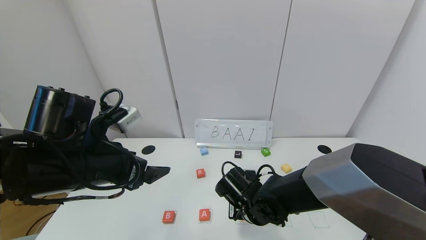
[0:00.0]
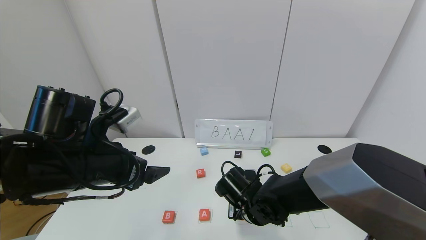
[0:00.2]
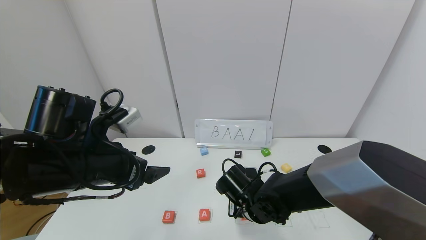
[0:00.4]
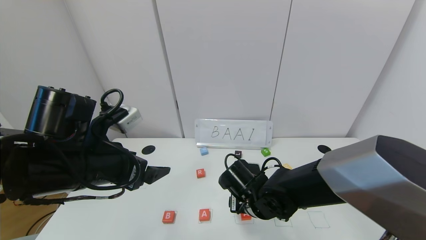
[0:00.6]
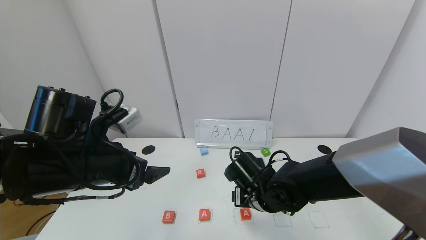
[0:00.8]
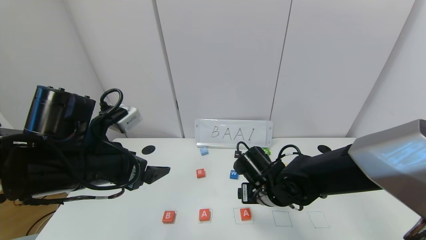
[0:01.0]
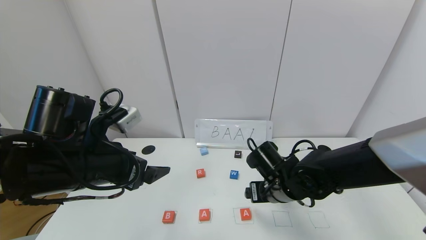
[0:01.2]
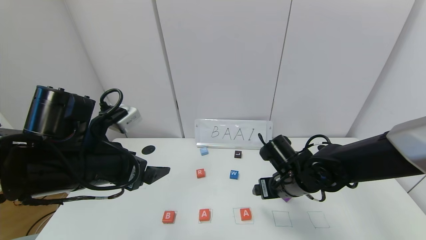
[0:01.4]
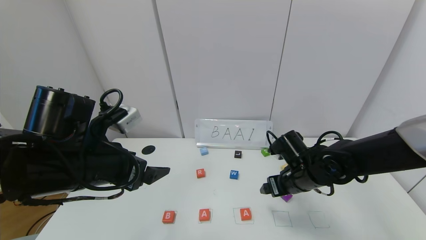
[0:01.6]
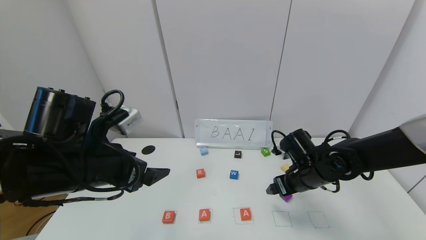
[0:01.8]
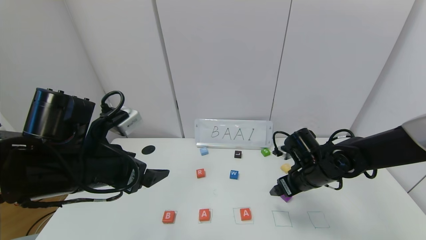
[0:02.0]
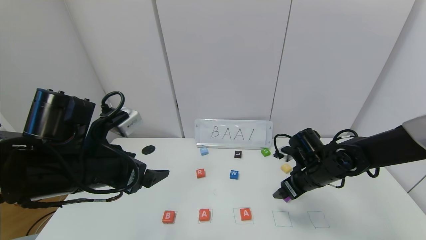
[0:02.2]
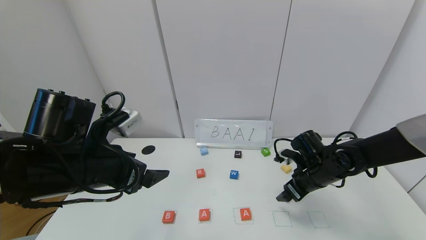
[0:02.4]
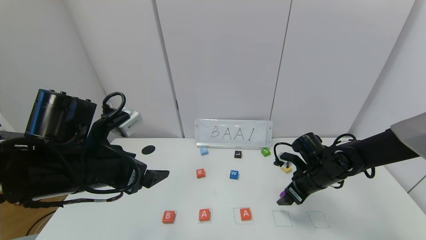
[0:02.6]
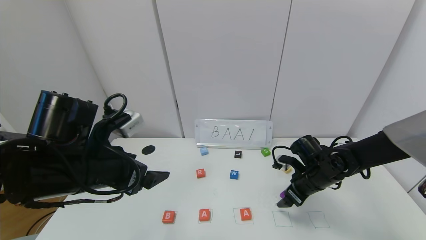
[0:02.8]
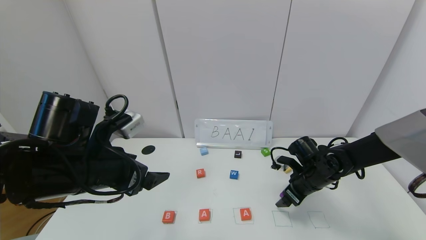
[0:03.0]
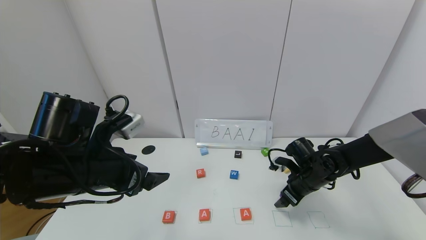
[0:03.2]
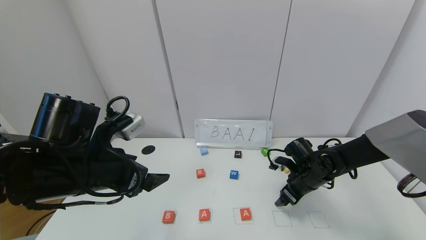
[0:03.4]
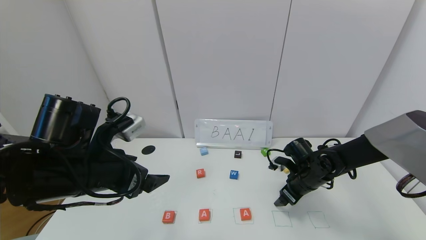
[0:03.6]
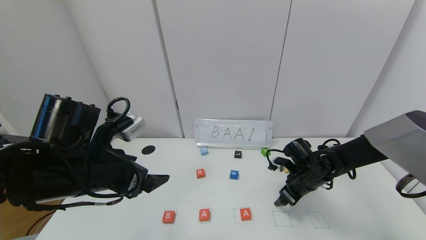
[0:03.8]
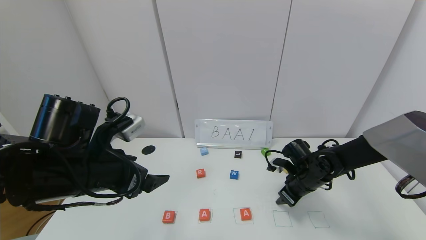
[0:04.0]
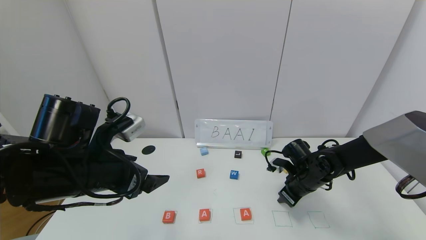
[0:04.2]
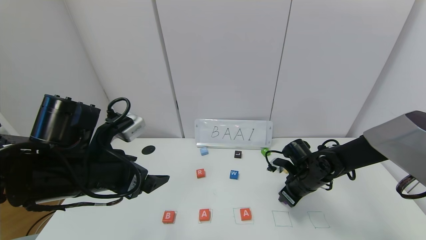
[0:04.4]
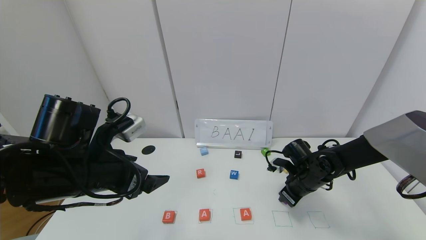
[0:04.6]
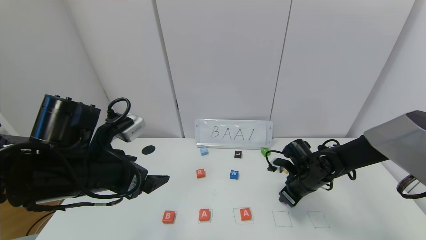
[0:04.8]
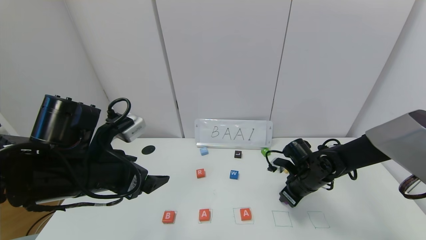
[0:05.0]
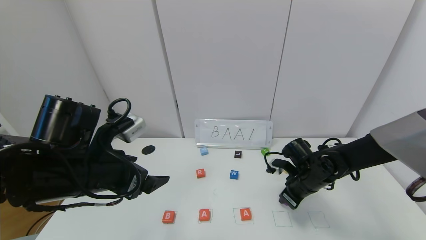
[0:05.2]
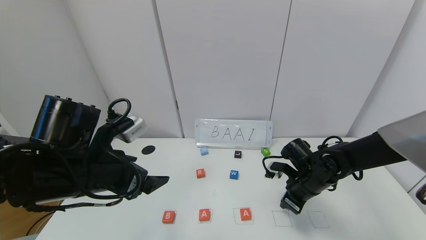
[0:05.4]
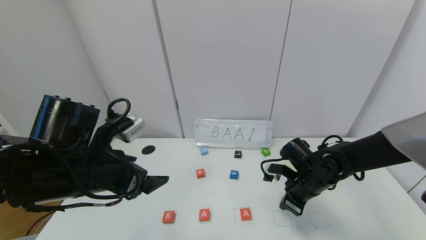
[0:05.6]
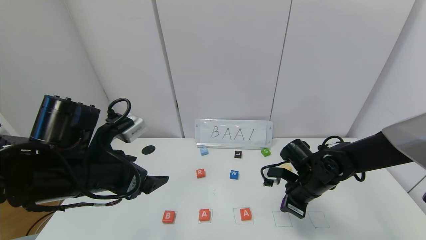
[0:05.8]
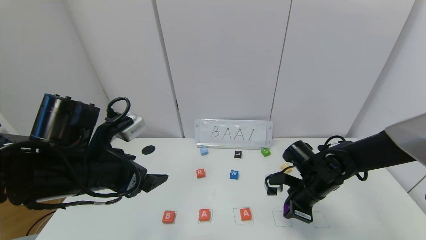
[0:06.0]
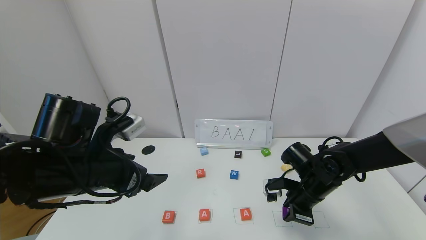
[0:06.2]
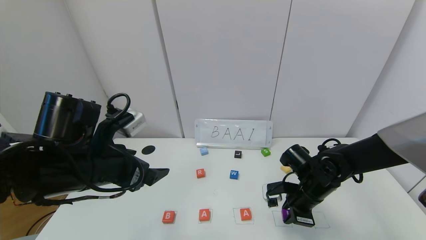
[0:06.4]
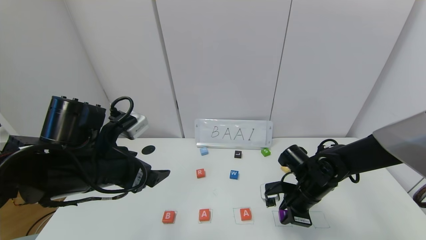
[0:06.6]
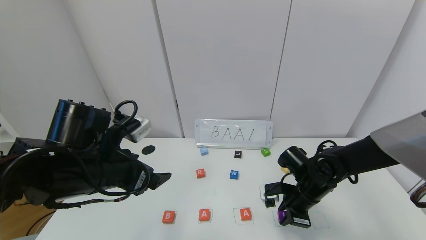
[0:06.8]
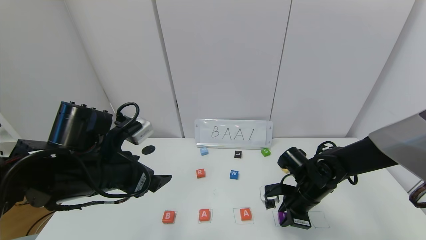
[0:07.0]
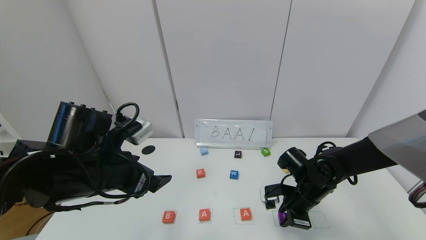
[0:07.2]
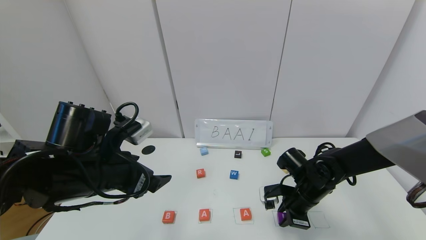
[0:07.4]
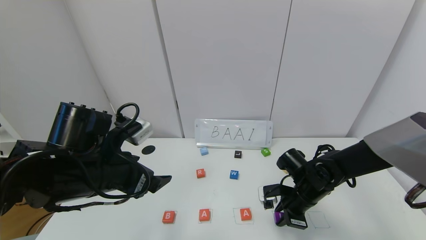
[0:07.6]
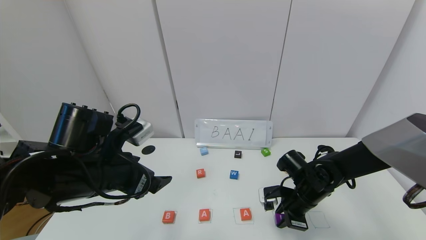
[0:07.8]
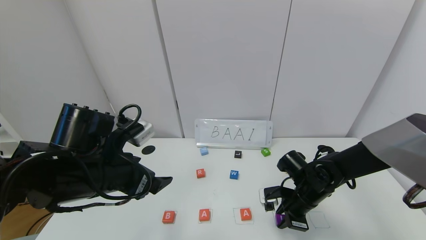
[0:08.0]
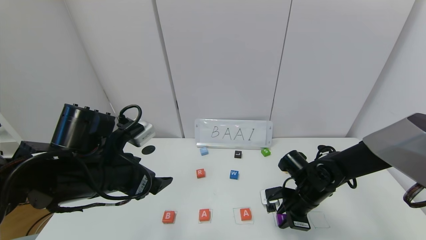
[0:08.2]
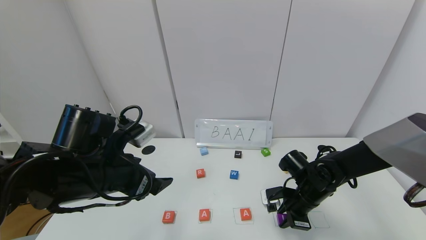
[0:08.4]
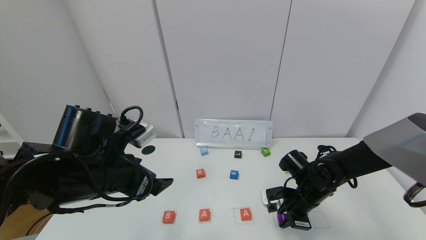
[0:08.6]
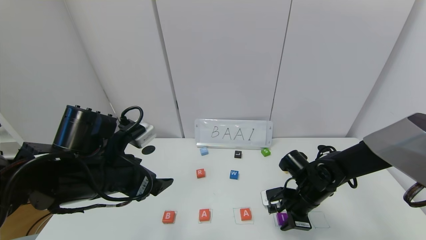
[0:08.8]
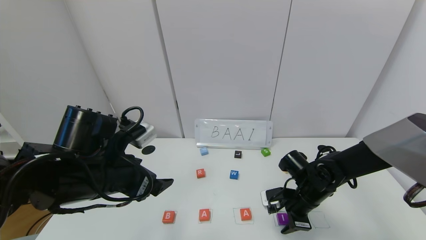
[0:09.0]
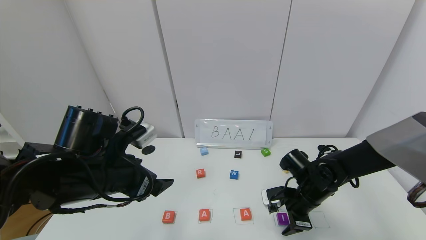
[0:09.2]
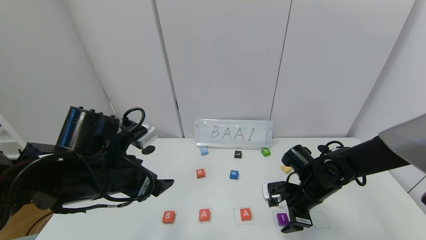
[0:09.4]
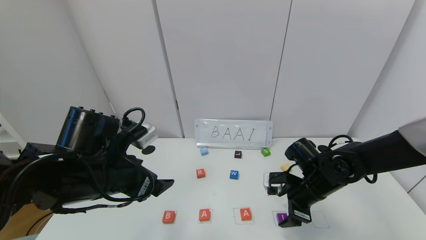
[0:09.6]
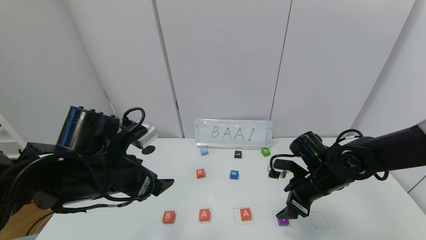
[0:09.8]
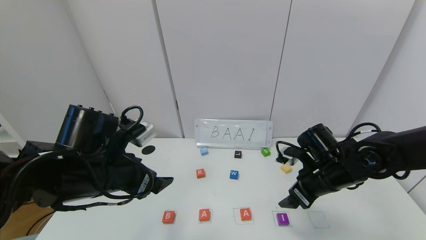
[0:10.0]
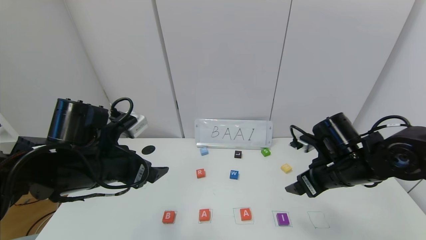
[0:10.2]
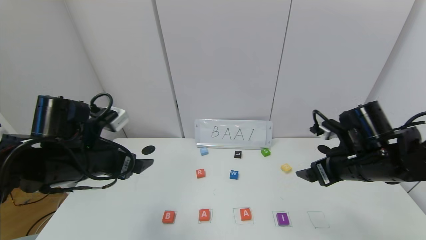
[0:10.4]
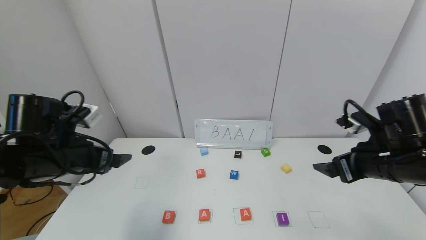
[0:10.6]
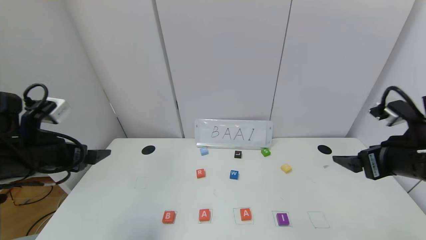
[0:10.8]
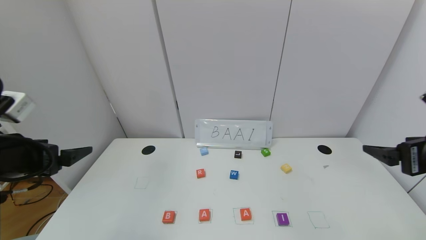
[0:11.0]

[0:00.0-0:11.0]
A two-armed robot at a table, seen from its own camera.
Task of the whole recording: use the gripper to find blocks with the letters b, a, a, and i on the table and arrange them into BAAI, then find r and N and turn the arranged baai into brian.
Step, 0:00.6 to 0:09.2: Place the block I in the fourth location.
0:00.0 to 0:01.6: The right gripper travels to the right and upward by approximately 15 cm, and opens its fingers.
0:01.6 to 0:03.2: The right gripper is displaced downward by some 5 cm.
0:03.2 to 0:04.8: The right gripper closes up.
0:04.8 to 0:06.2: The right gripper ends up some 5 cm from where it was.
0:06.2 to 0:07.8: The grippers make only small movements.
0:07.8 to 0:09.4: The right gripper opens its fingers.
0:09.4 to 0:11.0: The right gripper is displaced upward, backward and to the right by roughly 25 cm, while the left gripper goes roughly 15 cm to the left.

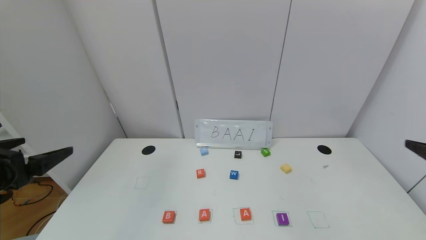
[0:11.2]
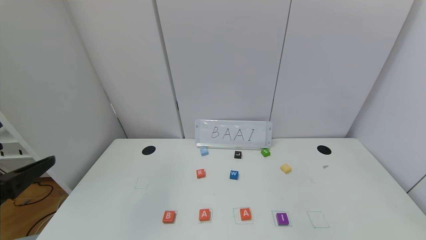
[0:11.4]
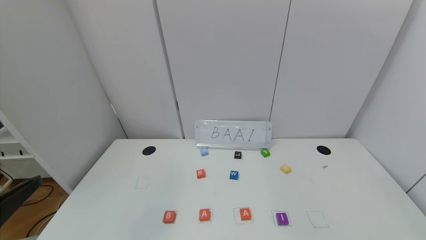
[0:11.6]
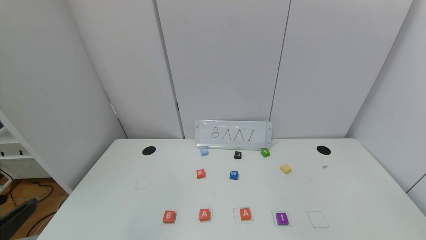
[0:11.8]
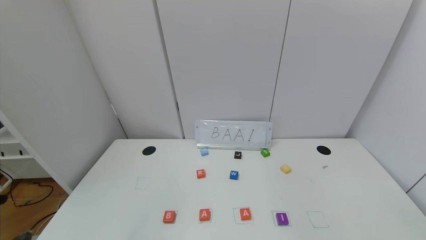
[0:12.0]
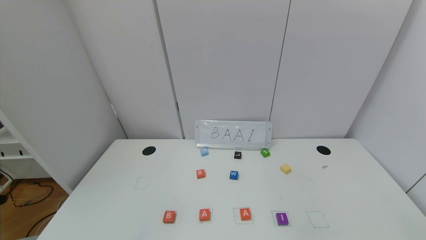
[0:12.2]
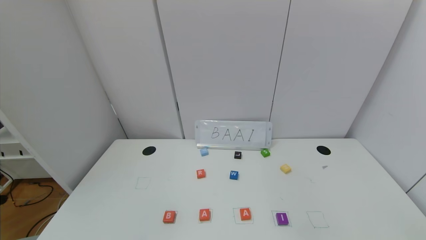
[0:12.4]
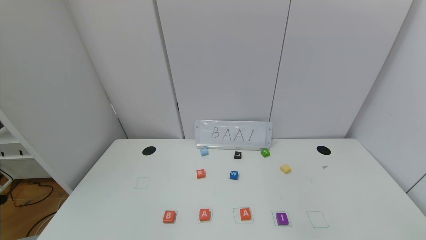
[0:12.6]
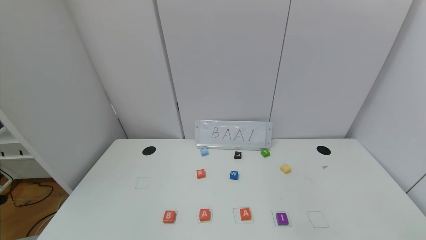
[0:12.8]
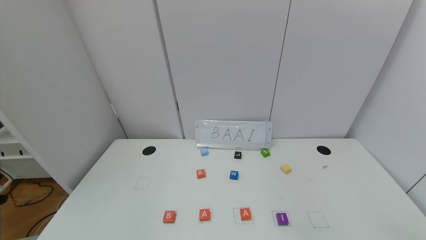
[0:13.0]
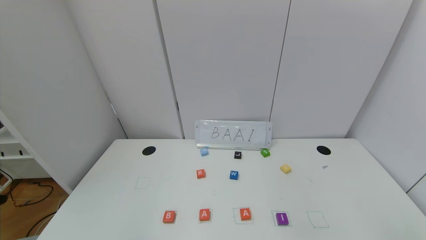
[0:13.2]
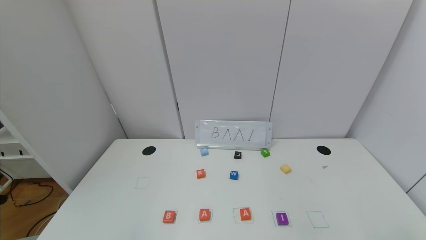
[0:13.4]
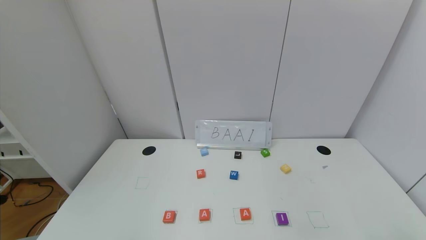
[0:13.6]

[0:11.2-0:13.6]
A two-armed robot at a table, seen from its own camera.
Task of the whole recording: use the gripper to find blocks with the letters b, a, a, and i on the table and arrange them into BAAI, then find r and N and turn the arranged baai into brian.
0:11.2 to 0:12.4: The left gripper is displaced backward by about 20 cm.
